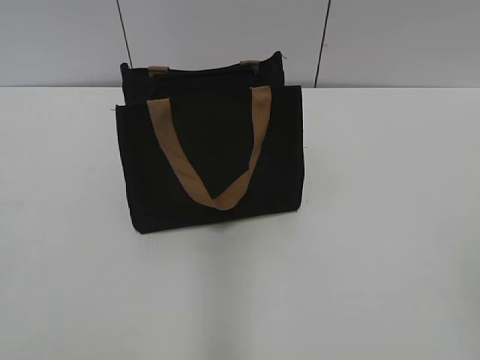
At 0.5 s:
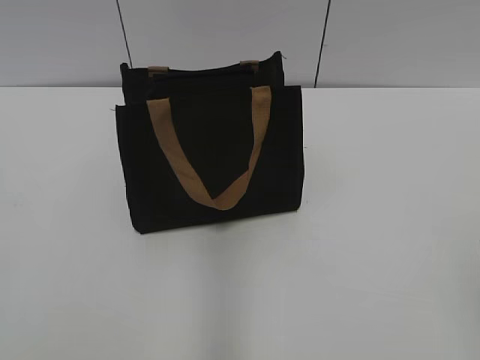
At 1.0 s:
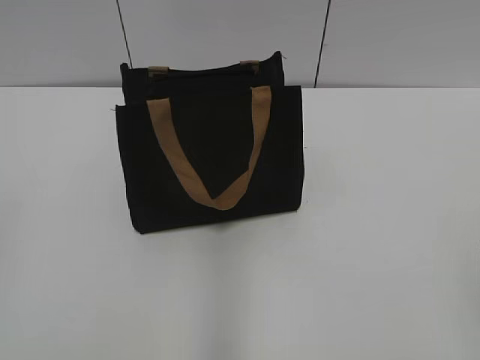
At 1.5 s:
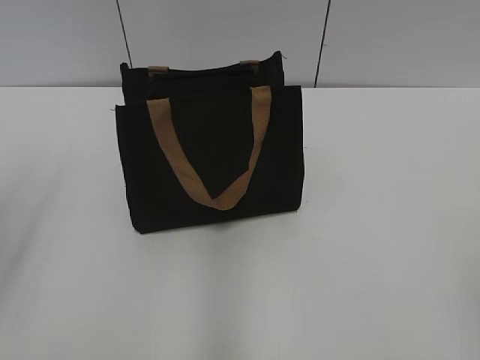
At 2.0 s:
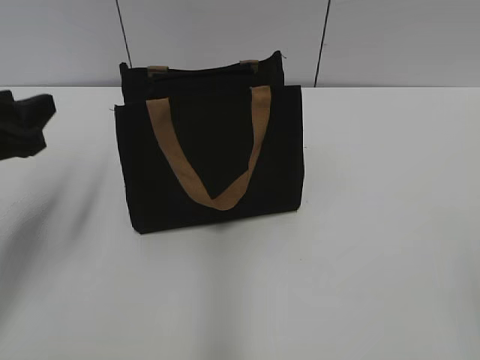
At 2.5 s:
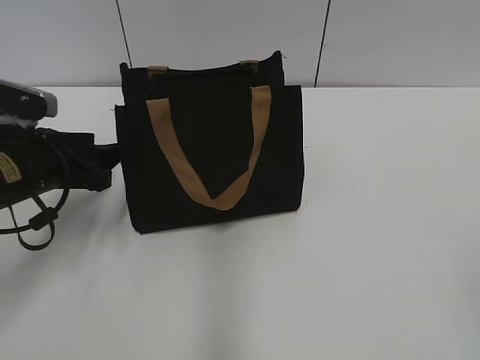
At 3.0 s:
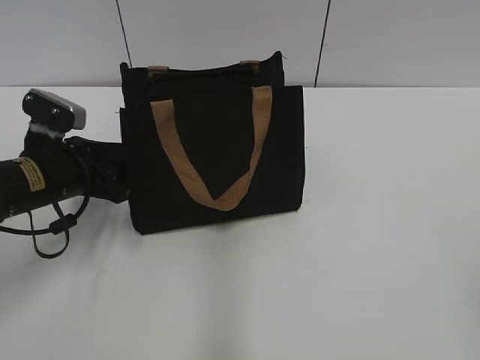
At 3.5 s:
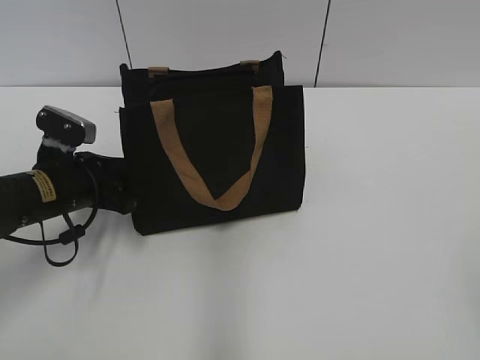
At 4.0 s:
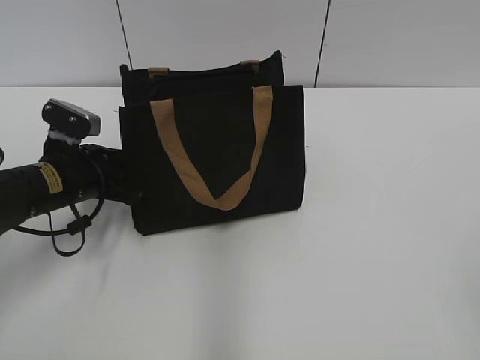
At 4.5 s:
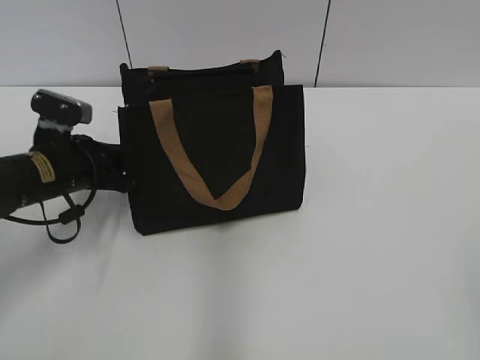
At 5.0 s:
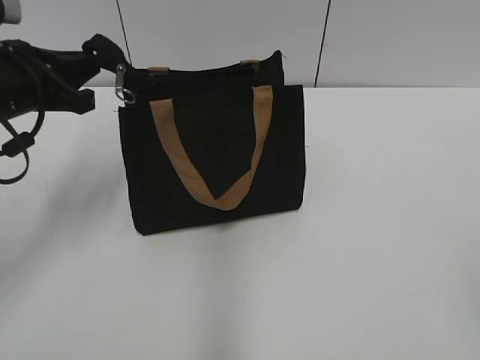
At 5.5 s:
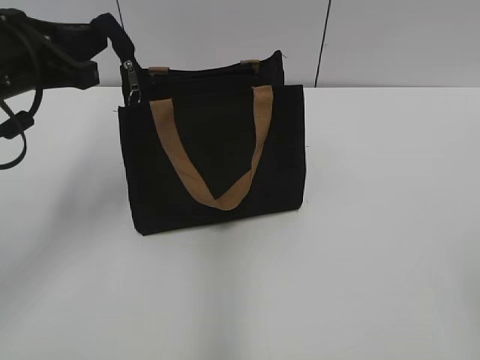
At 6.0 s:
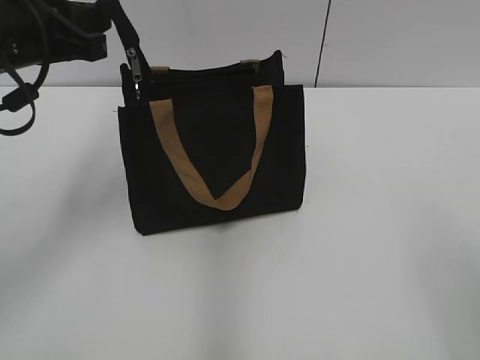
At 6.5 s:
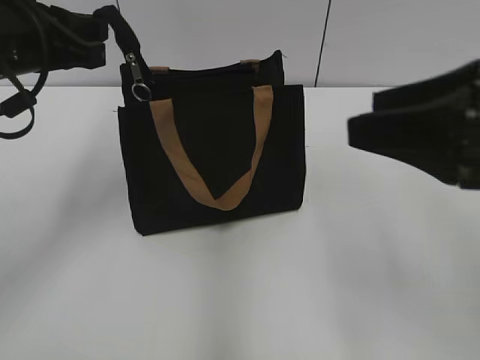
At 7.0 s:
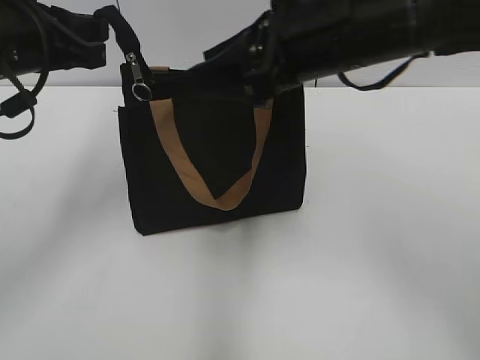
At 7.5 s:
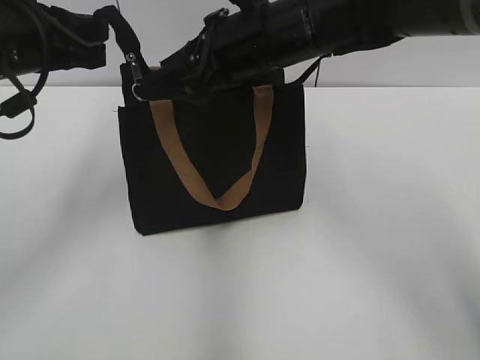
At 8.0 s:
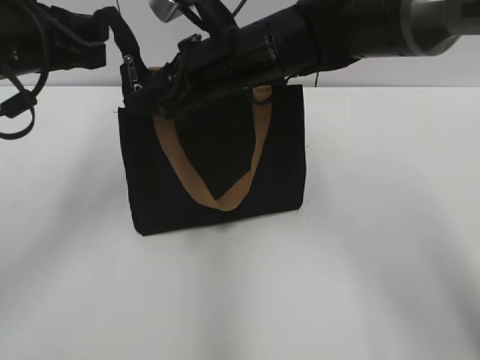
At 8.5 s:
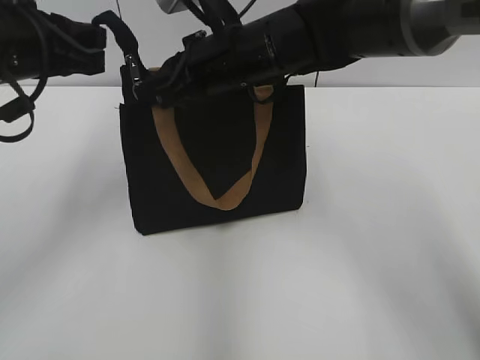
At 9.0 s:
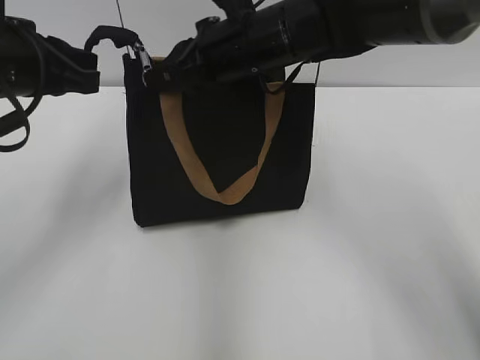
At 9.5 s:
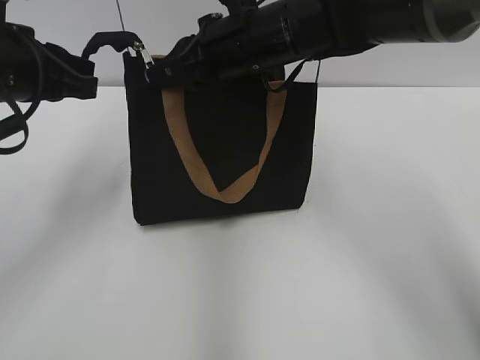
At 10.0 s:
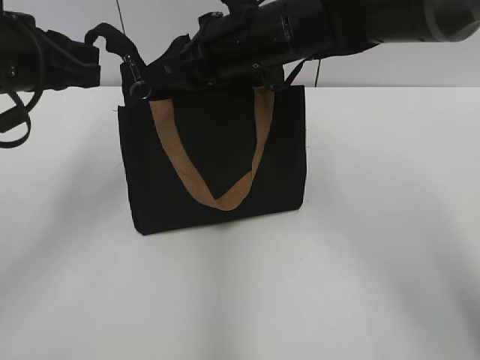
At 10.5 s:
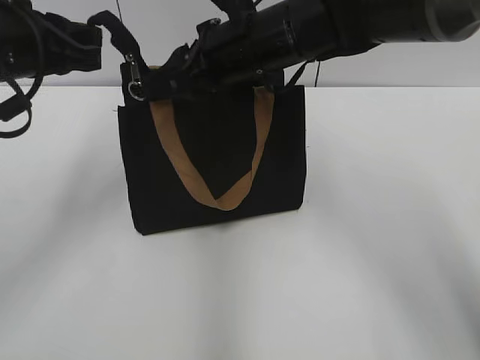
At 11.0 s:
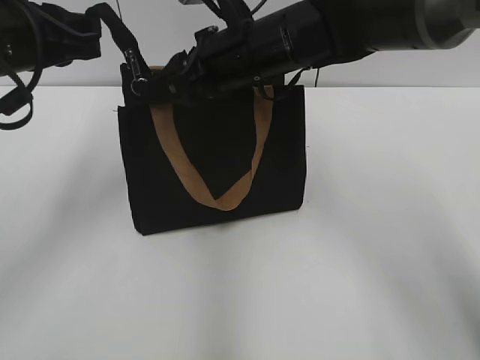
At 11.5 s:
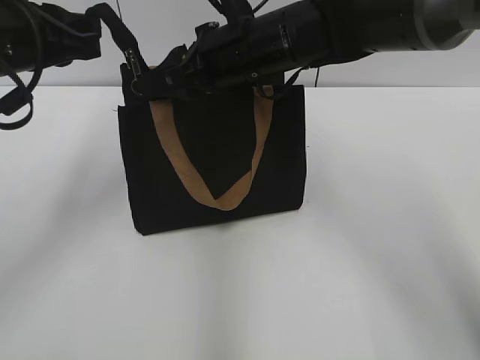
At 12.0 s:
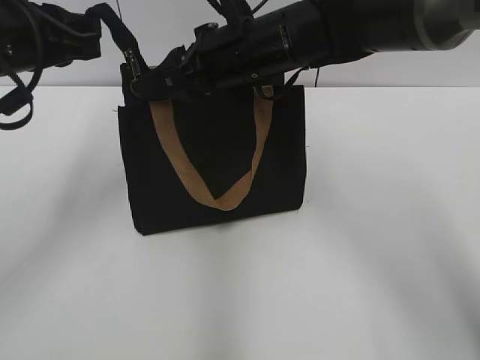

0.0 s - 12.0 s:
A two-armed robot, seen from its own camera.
2.0 s - 4.0 s: The left gripper shifts about 15 cm downward, forward and to the right.
4.0 s - 6.0 s: The left gripper shifts about 20 cm upward, and closes its fingers.
6.0 s - 8.0 s: The right gripper heads forward and to the left, covering some 40 cm.
8.0 s - 10.0 s: The right gripper closes, then reopens.
10.0 s - 12.0 s: The grippers stay close to where they were, moving slightly.

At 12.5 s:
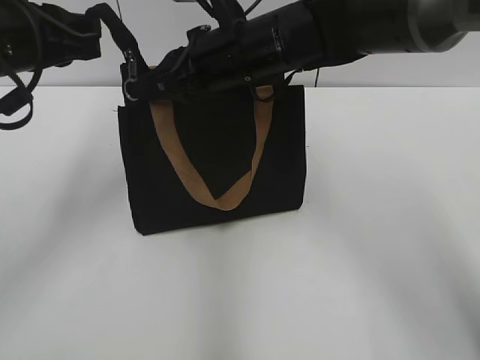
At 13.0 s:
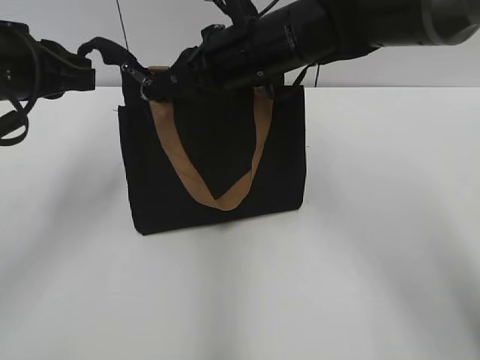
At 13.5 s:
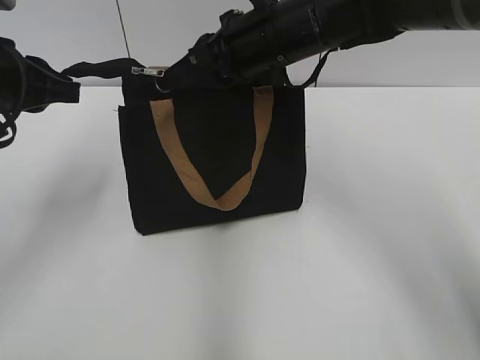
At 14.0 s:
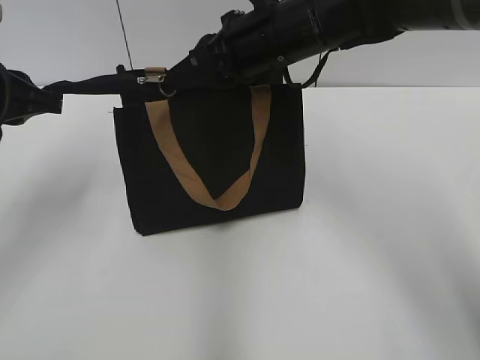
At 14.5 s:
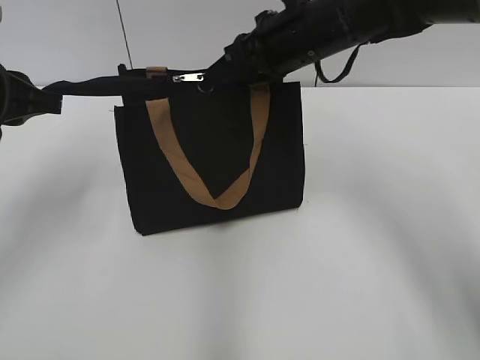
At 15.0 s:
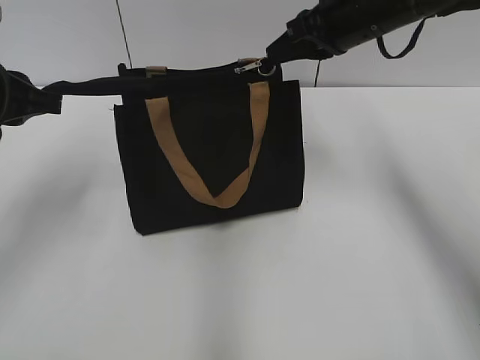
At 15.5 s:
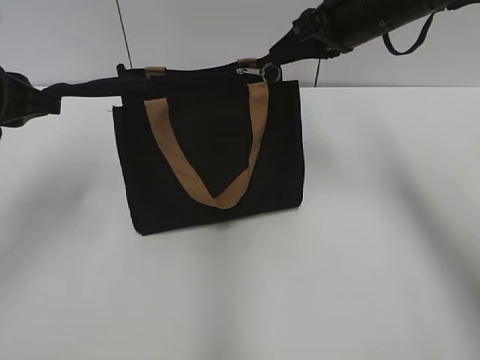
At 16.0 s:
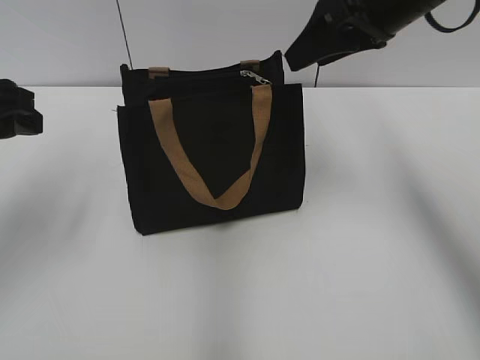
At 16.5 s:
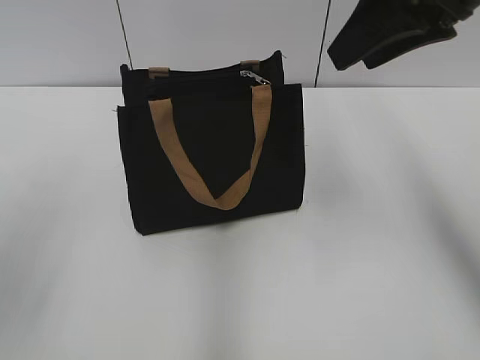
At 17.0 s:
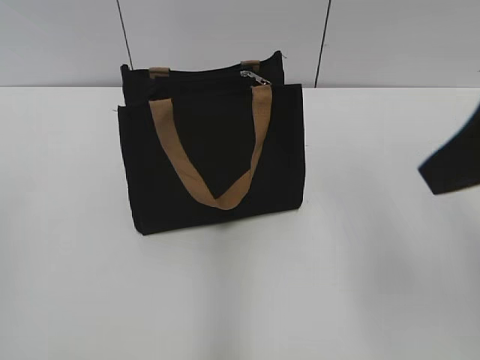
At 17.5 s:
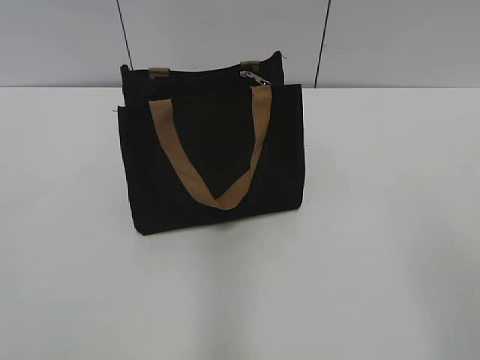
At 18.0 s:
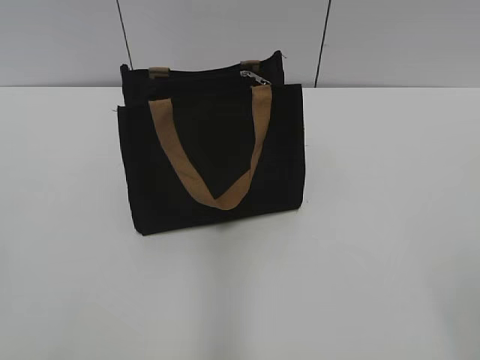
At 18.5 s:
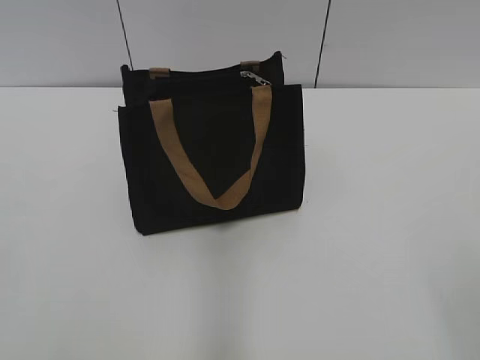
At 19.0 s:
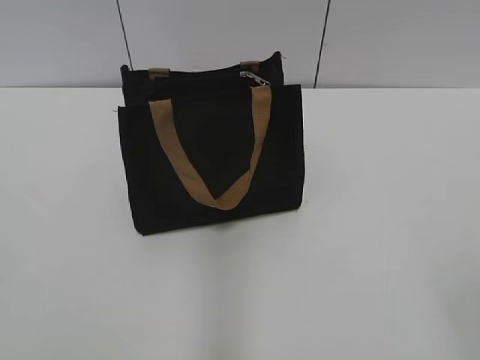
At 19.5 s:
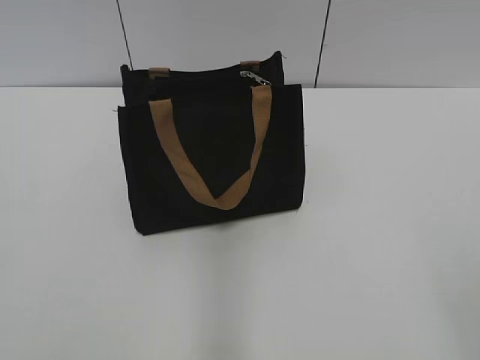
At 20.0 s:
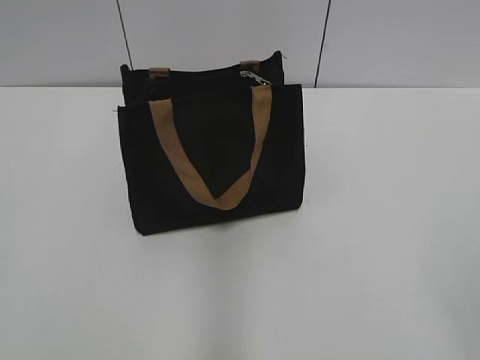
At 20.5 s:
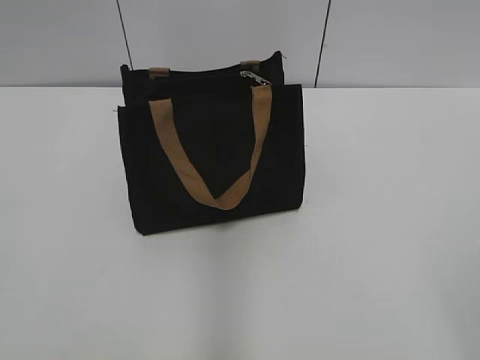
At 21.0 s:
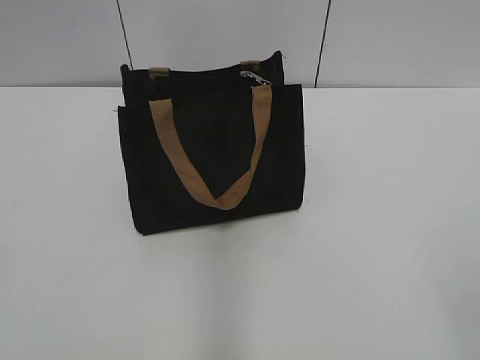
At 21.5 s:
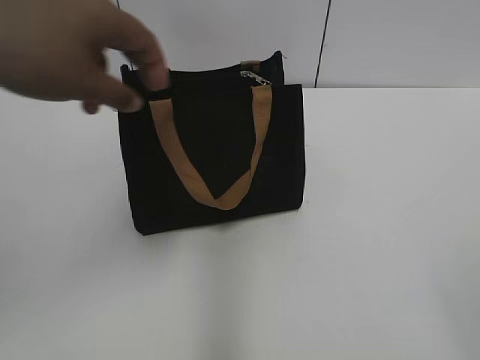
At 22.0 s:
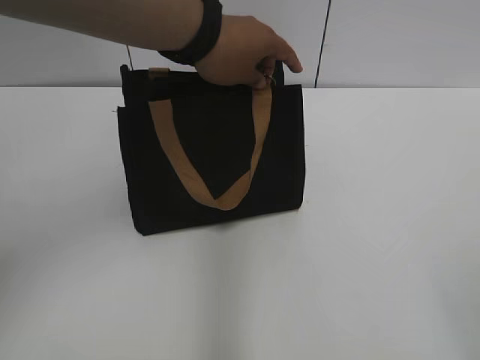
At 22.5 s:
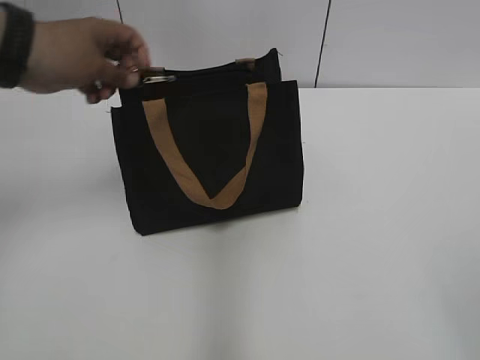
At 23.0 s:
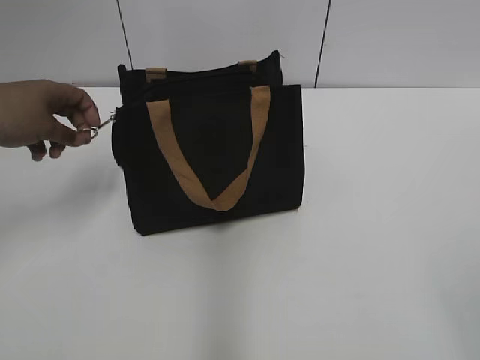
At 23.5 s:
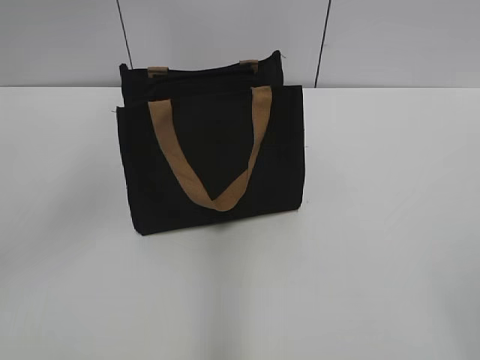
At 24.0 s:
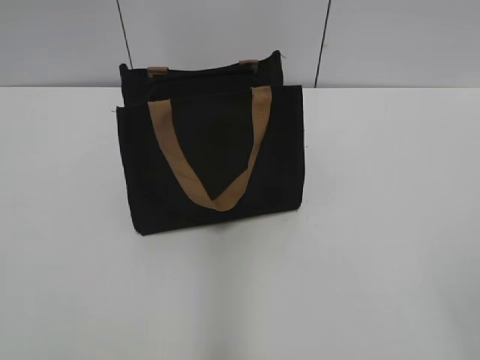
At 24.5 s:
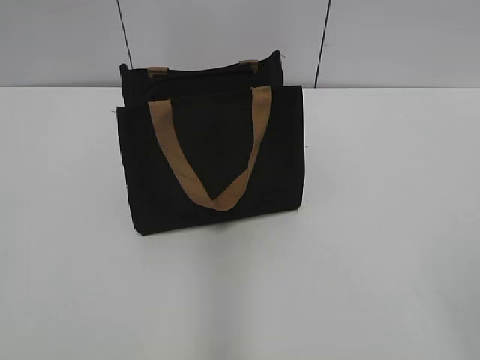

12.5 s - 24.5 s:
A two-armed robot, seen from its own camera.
Step, 12.5 s - 15.5 s: Zip up the bag with your right hand.
12.5 s - 14.5 s: The left gripper ends up approximately 5 cm from where it was, while the right gripper heads to the right, covering roughly 5 cm.
14.5 s - 16.5 s: The right gripper shifts roughly 15 cm upward, to the right and backward, and opens up, while the left gripper shifts roughly 15 cm backward and upward, and opens up.
16.5 s - 18.5 s: The right gripper travels backward by approximately 30 cm.
20.5 s - 24.5 s: Both grippers stay about where they are.

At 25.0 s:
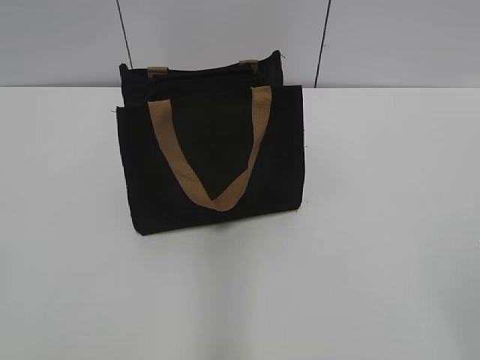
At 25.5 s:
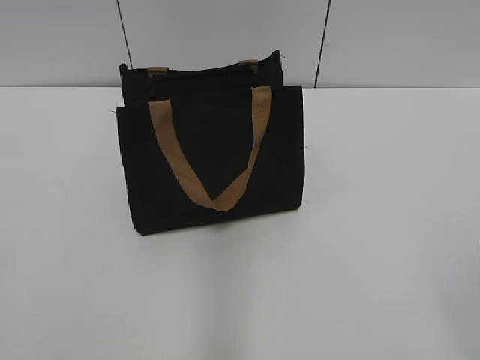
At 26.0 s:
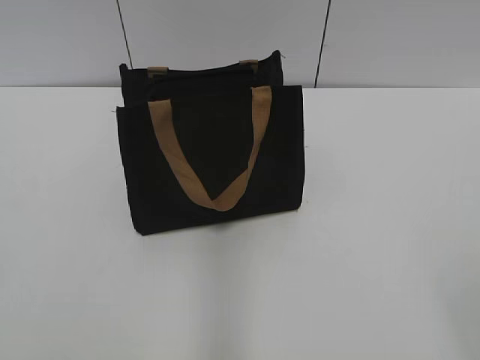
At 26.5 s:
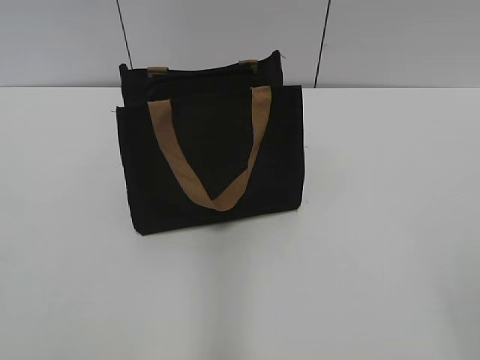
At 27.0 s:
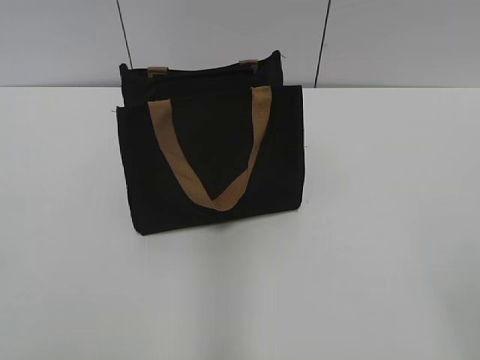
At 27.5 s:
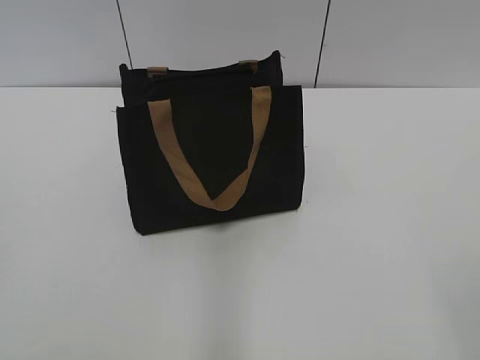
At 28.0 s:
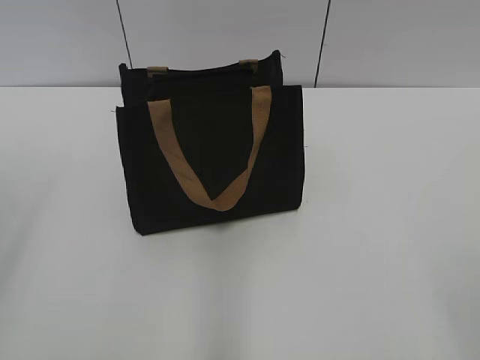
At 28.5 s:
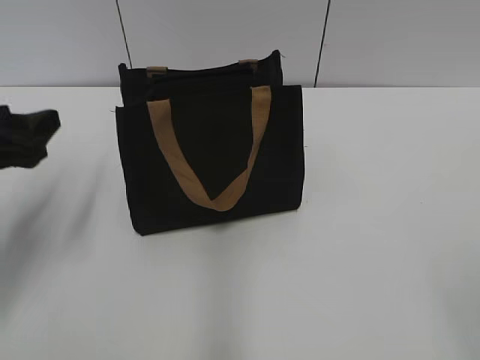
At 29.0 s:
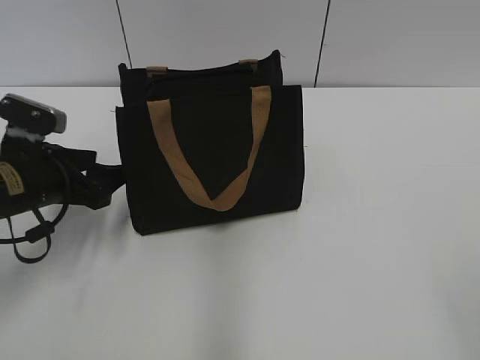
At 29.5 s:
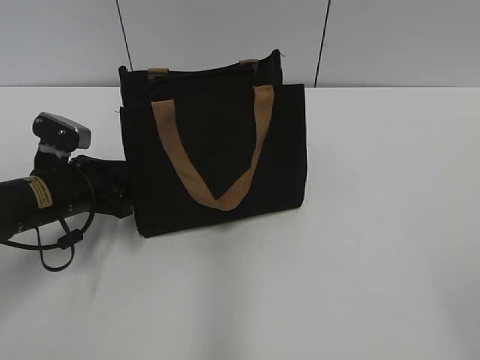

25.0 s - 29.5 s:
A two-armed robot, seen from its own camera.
25.0 s - 27.0 s: Neither gripper changes place.
27.0 s - 29.5 s: The left gripper is displaced forward and downward by approximately 35 cm.
